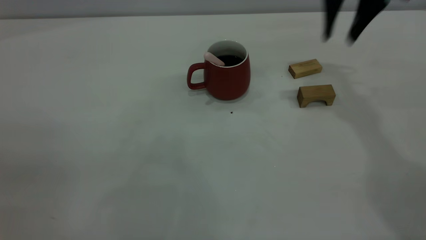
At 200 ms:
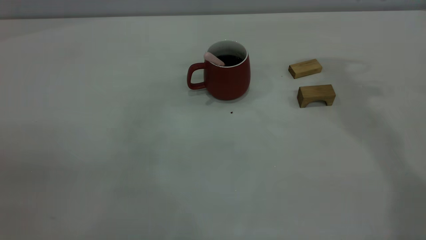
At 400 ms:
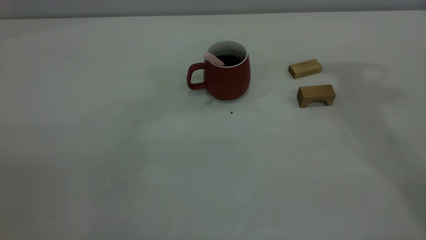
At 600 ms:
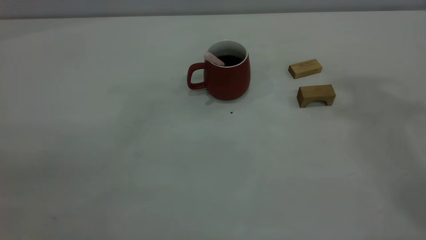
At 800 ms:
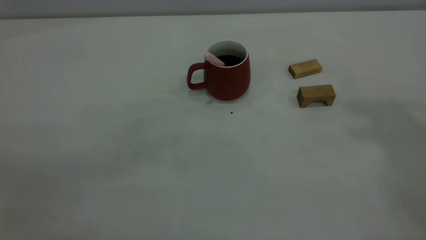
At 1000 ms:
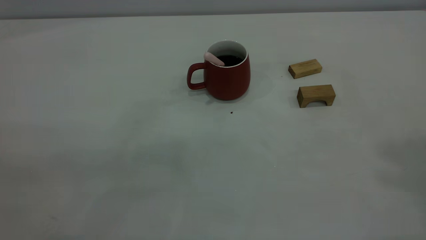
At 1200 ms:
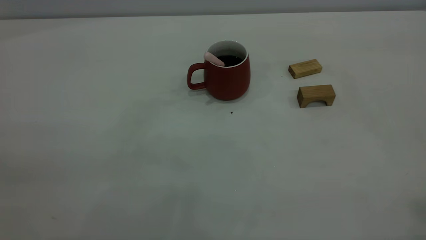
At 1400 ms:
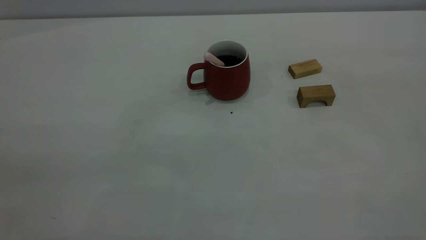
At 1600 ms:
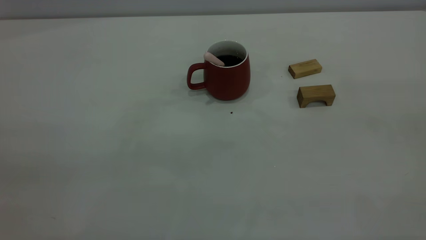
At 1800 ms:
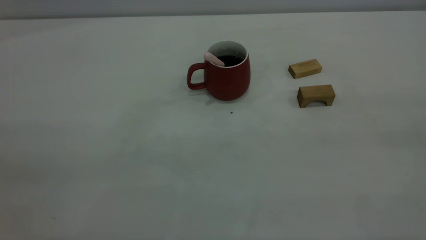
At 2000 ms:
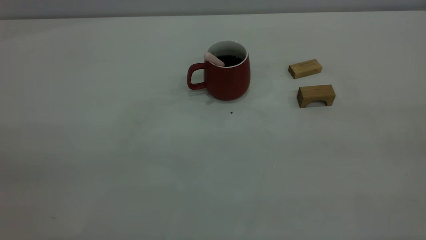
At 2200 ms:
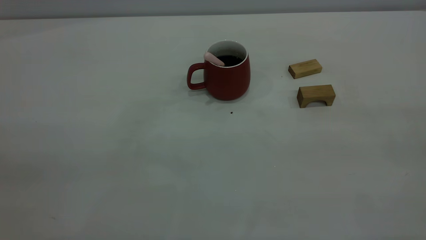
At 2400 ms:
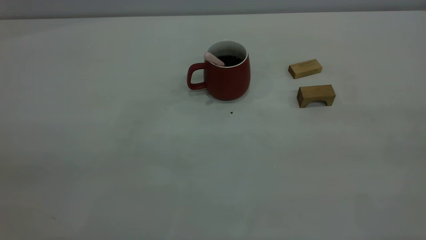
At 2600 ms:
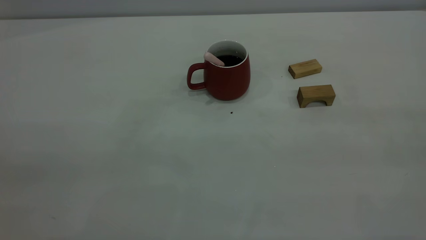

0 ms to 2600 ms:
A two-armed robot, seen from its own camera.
0 ms to 1200 ms: The right gripper moves backward and upward, roughly 40 cm.

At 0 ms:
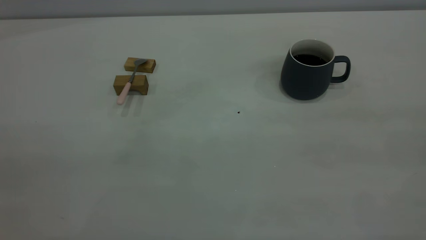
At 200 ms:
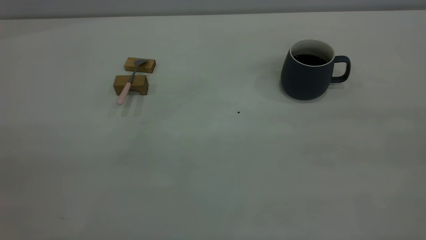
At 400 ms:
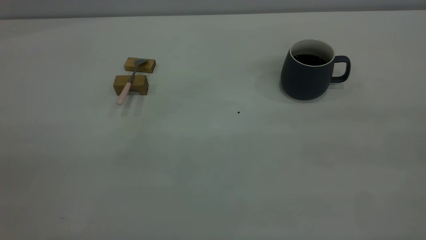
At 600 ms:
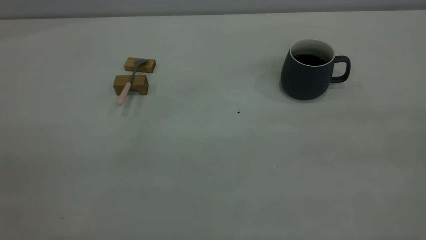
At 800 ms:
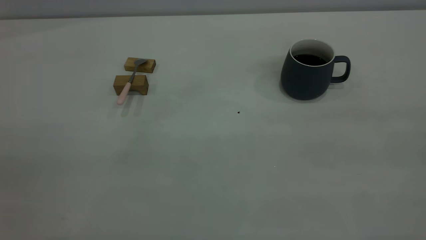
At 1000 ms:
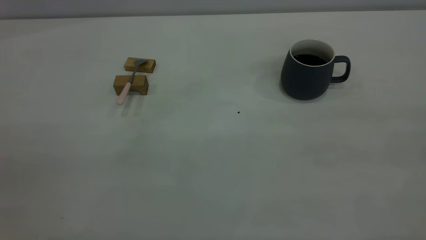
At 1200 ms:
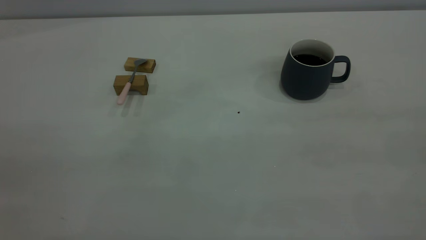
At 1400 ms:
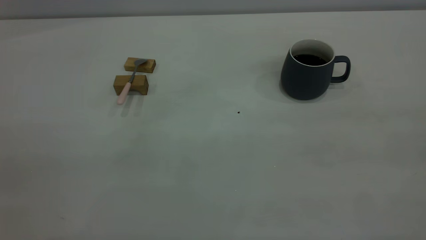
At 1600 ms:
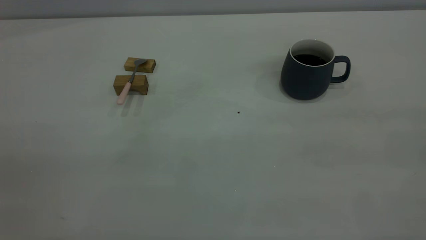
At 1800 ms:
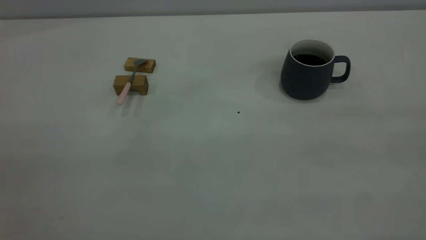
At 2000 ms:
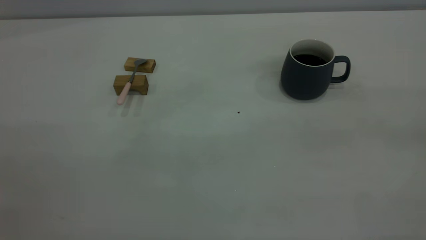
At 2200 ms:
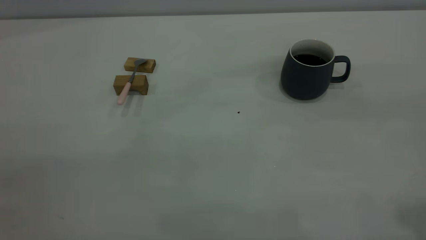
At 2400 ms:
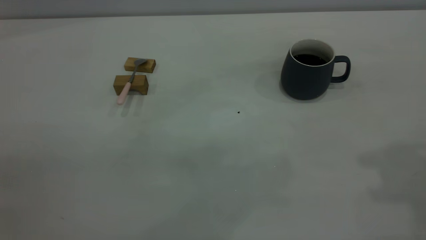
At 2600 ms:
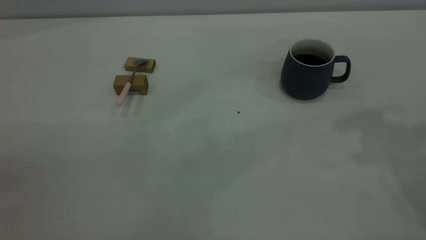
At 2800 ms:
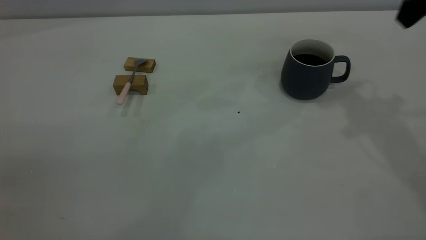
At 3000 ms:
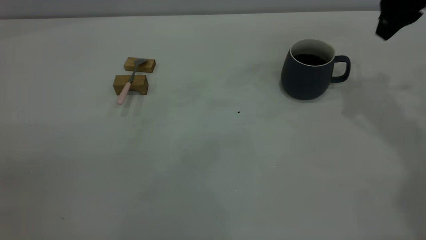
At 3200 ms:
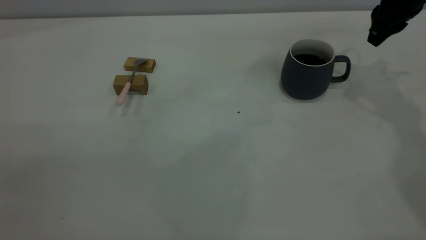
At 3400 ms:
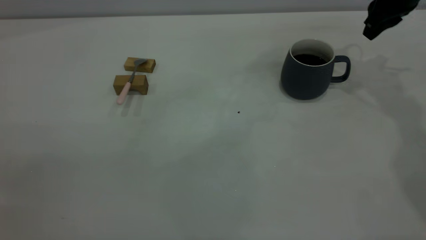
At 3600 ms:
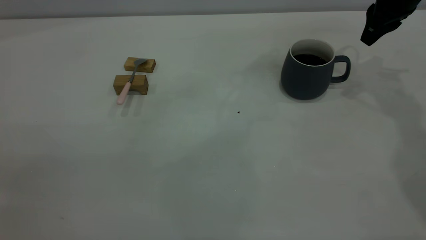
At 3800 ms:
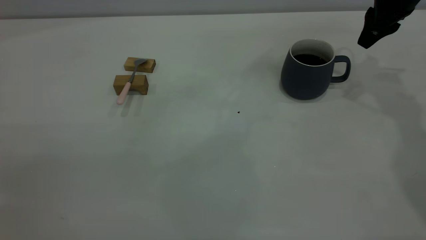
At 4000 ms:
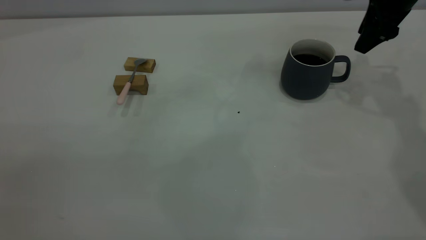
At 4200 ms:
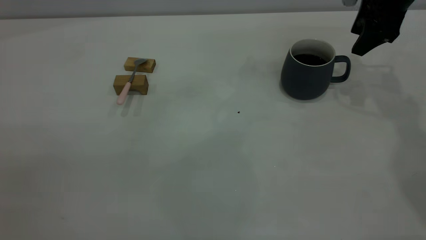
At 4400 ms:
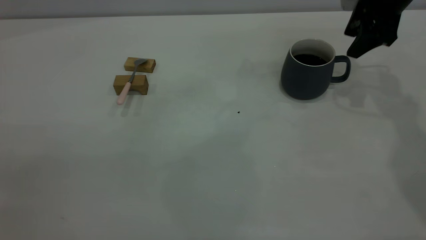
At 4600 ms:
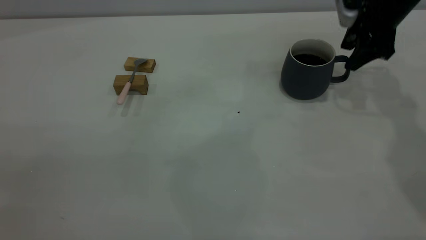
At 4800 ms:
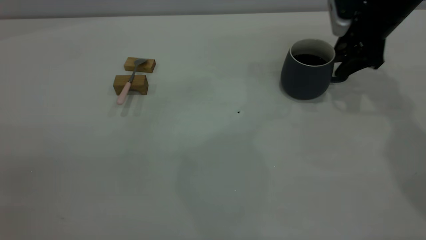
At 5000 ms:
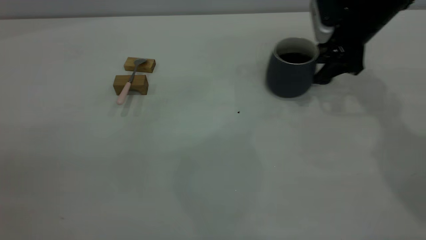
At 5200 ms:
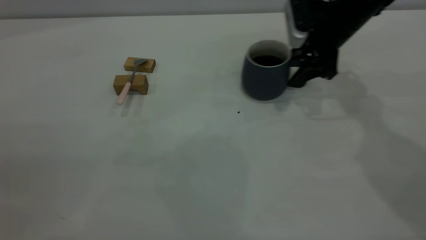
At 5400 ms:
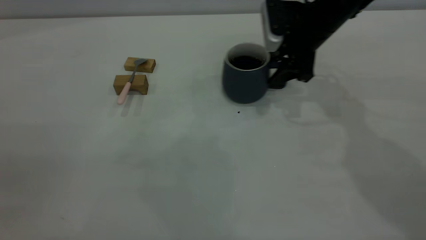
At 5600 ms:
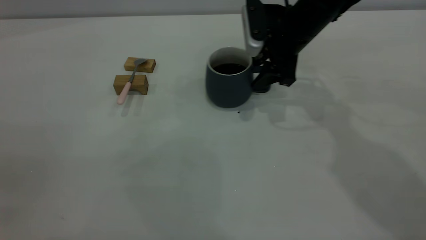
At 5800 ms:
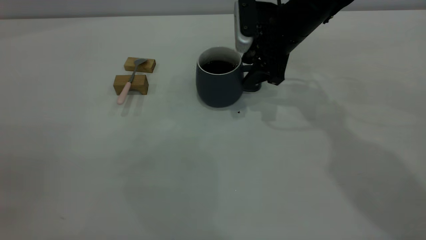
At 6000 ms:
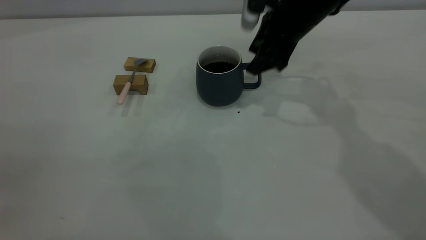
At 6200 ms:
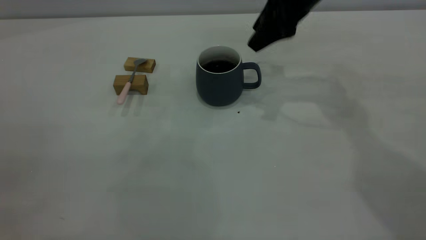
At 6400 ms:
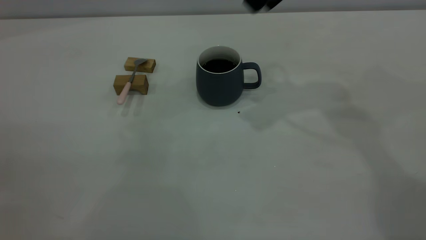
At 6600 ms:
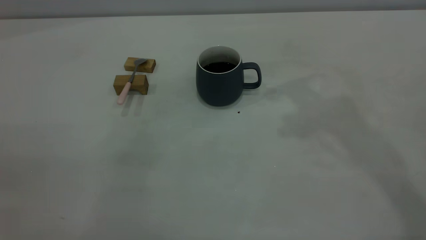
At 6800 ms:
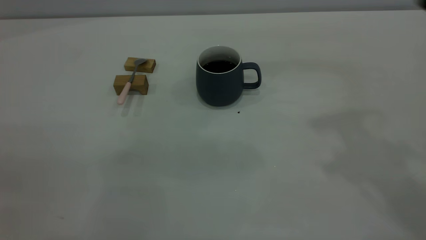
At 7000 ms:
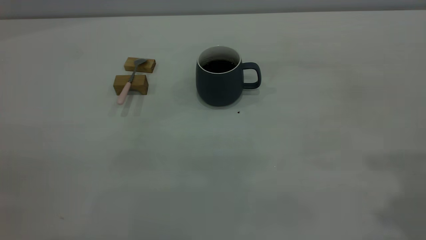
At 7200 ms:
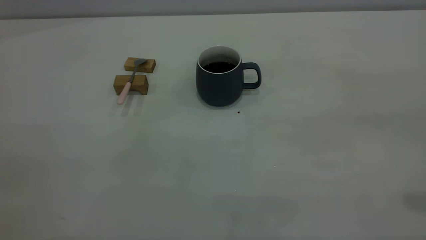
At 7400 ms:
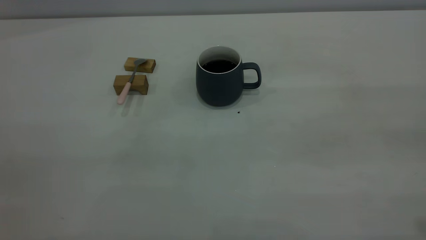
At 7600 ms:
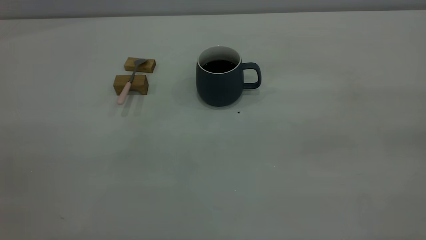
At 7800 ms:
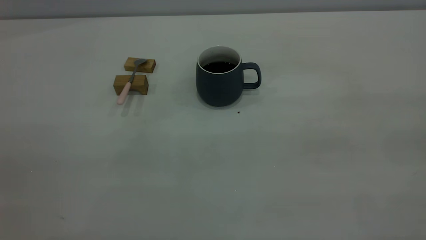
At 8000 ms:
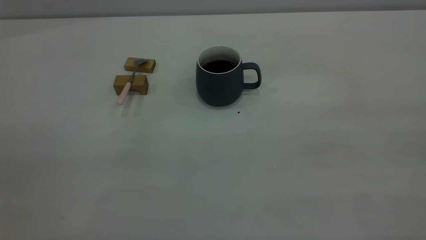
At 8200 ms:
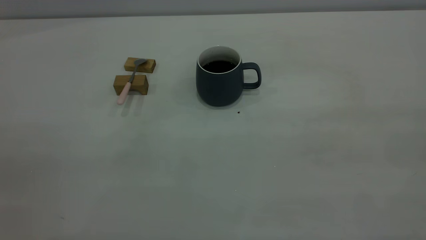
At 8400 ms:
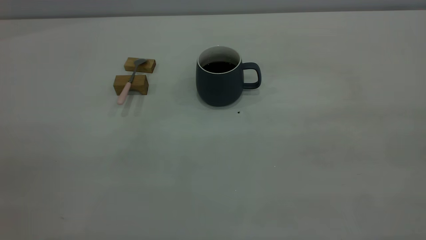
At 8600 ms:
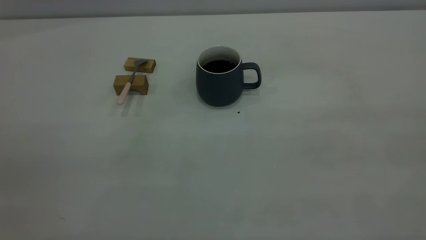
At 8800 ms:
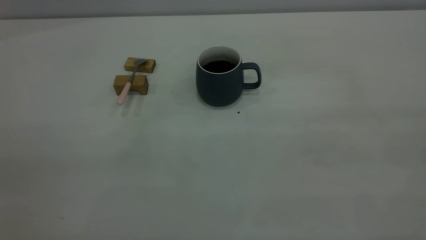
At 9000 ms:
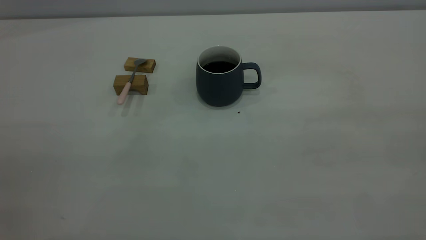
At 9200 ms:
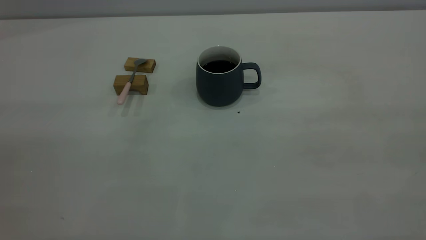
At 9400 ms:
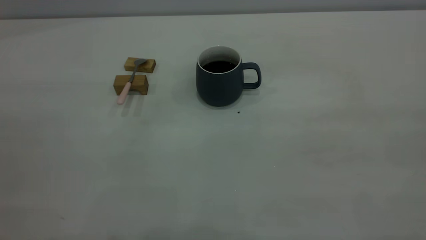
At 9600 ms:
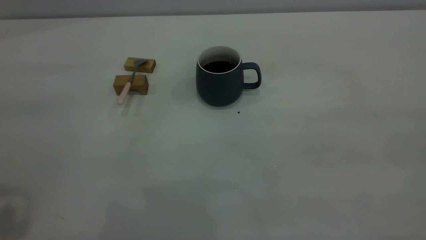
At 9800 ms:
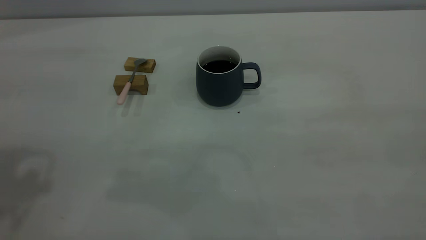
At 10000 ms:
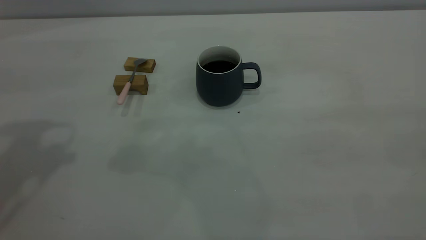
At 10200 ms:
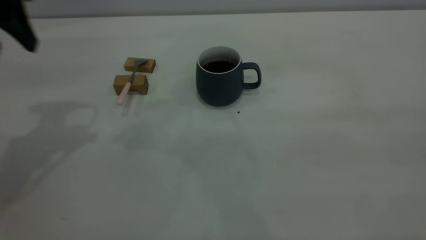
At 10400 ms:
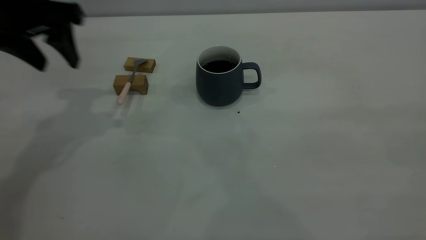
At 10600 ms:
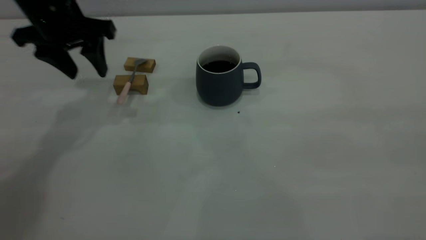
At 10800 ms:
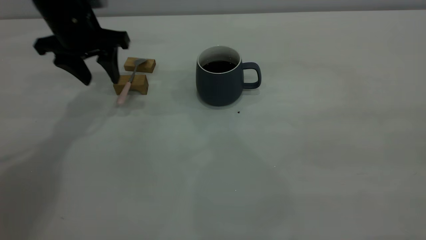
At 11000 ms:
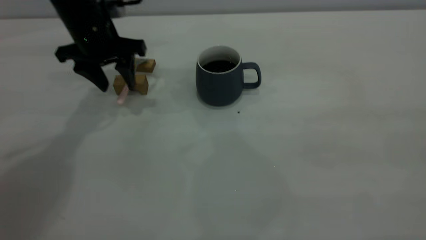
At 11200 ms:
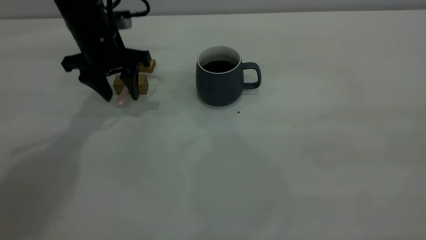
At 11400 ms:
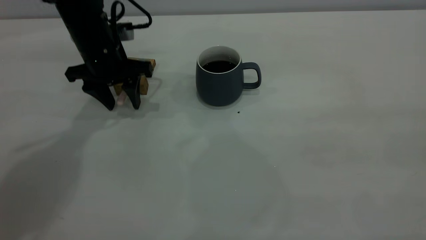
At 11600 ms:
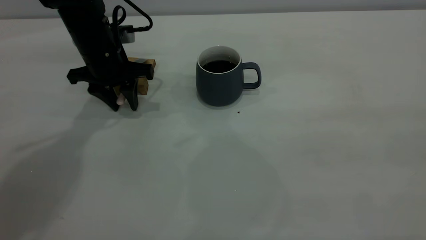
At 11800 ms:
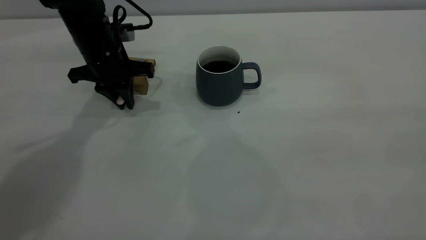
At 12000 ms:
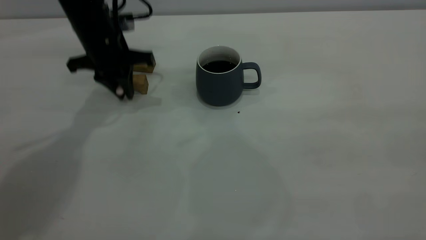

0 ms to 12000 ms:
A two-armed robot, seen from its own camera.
Step, 0 ms to 6000 ms: Move the cup with coffee to the center of view.
0 ms to 1600 ms: Neither gripper changes place.
1600 ms to 3000 ms: The right gripper heads forward, covering roughly 40 cm, and closes up.
3000 ms to 4400 ms: The right gripper moves roughly 5 cm, and opens.
4400 ms to 6000 ms: The right gripper is displaced to the left by about 15 cm.
6000 ms to 7600 ms: The right gripper is displaced backward, upward and to the right by about 50 cm.
9000 ms to 10400 ms: The left gripper heads forward, covering approximately 35 cm, and opens its fingers.
10400 ms to 12000 ms: The left gripper moves downward, forward and to the right, approximately 15 cm, and closes.

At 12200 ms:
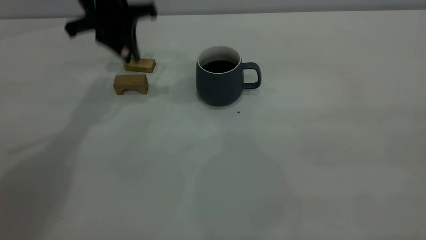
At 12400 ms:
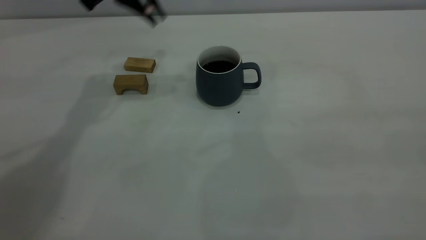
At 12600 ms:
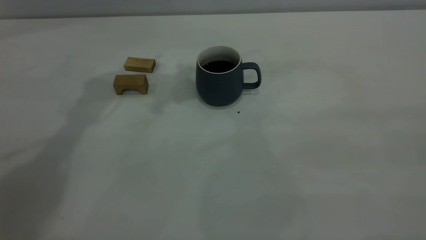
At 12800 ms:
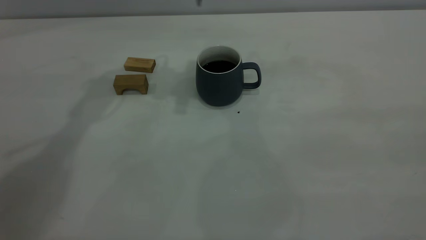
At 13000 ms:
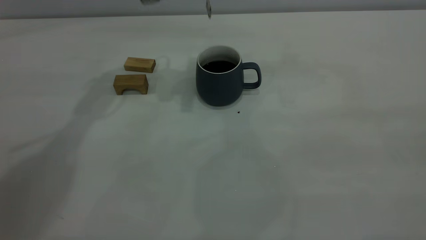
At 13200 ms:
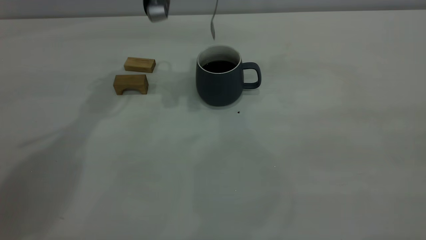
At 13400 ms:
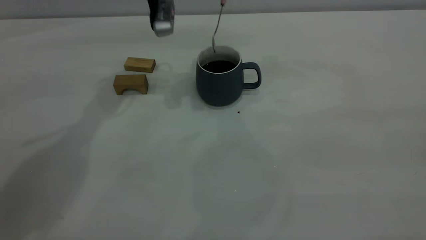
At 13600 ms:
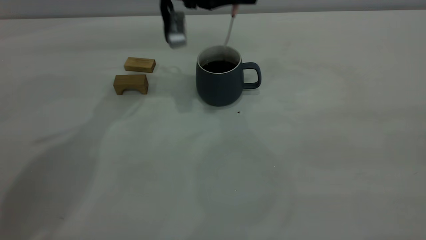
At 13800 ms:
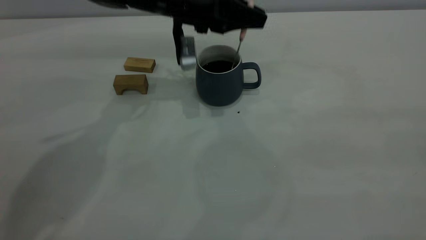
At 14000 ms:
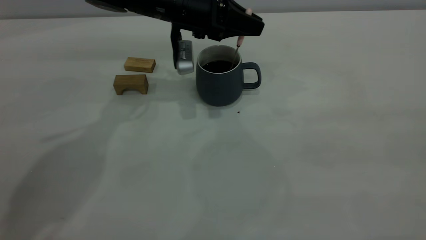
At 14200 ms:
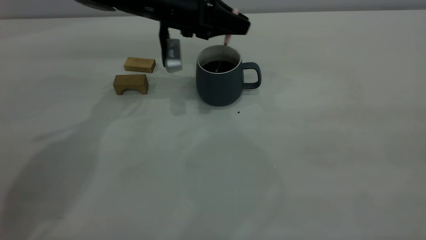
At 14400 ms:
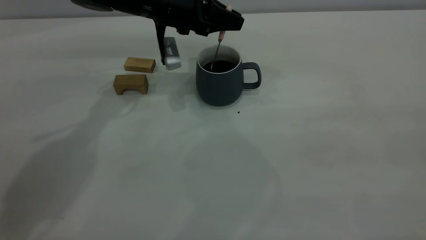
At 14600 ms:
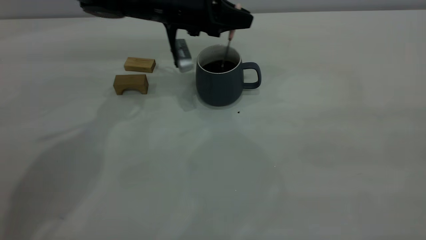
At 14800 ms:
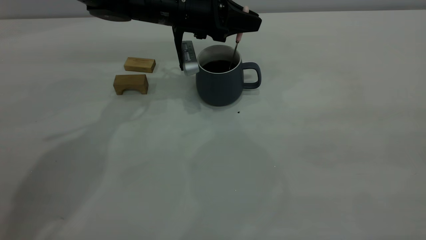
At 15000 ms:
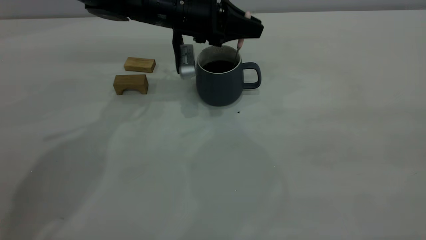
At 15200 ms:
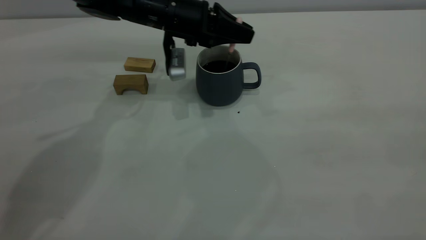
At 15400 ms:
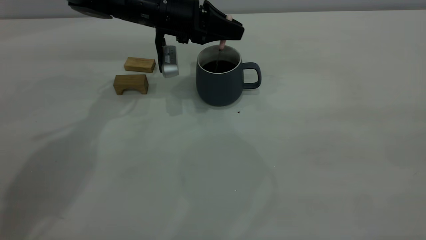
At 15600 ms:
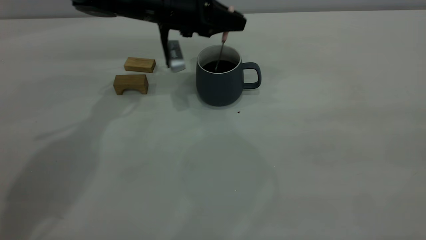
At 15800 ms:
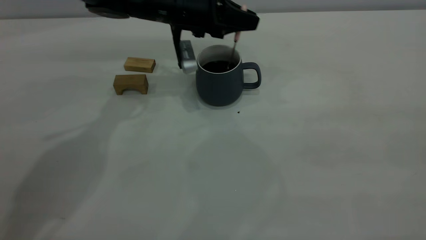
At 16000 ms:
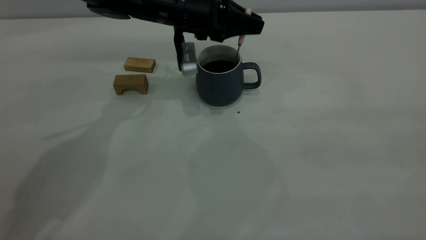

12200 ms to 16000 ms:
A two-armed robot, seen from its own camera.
12200 ms to 13400 ms: The left gripper heads to the right, covering roughly 10 cm.
13400 ms to 14800 ms: The left gripper is displaced downward by some 5 cm.
14800 ms to 16000 ms: The grippers move only a little.
